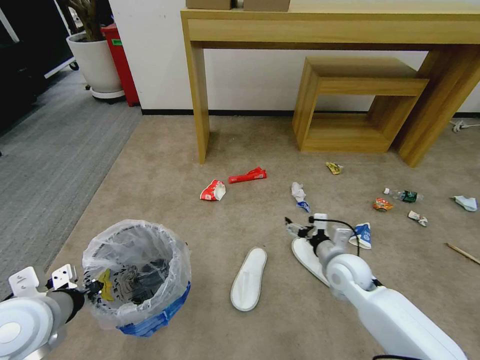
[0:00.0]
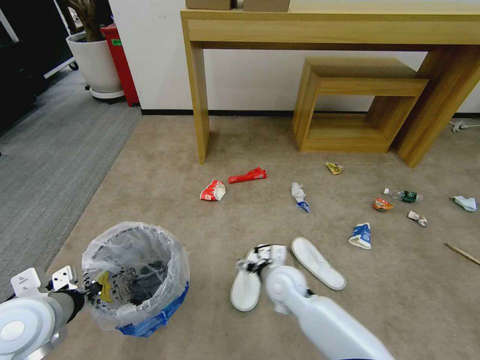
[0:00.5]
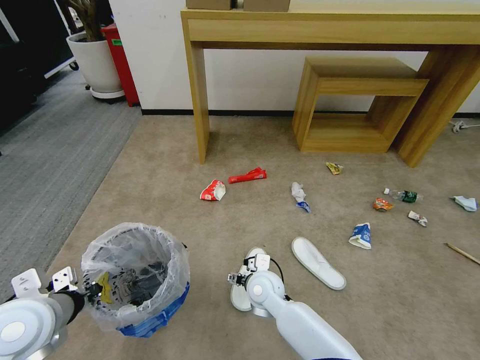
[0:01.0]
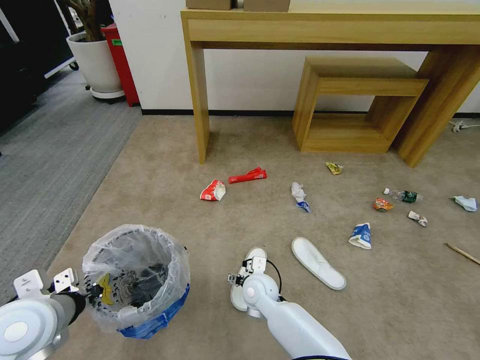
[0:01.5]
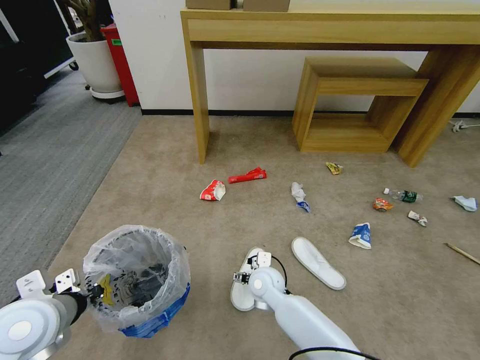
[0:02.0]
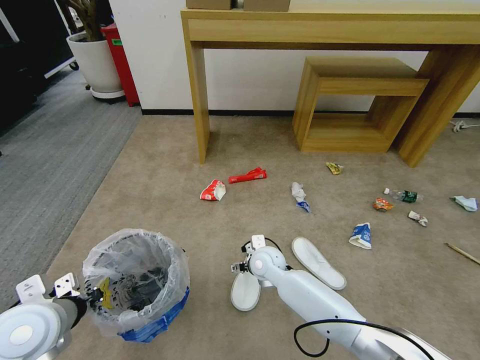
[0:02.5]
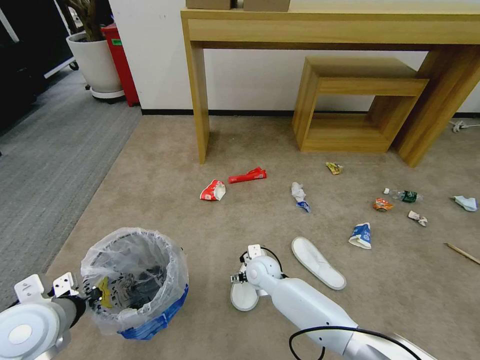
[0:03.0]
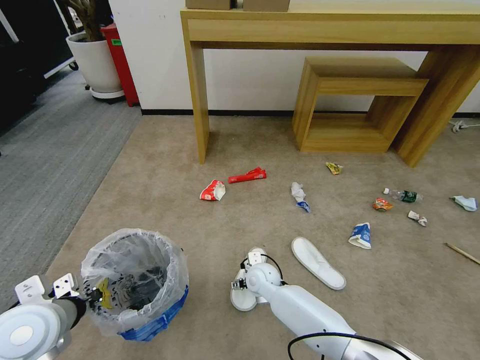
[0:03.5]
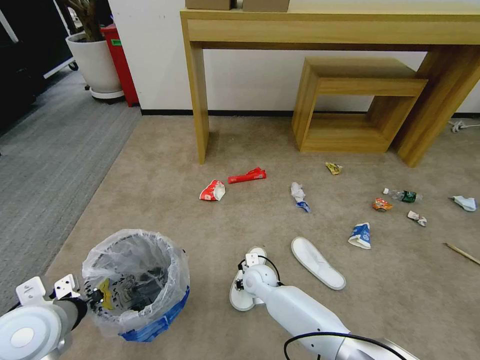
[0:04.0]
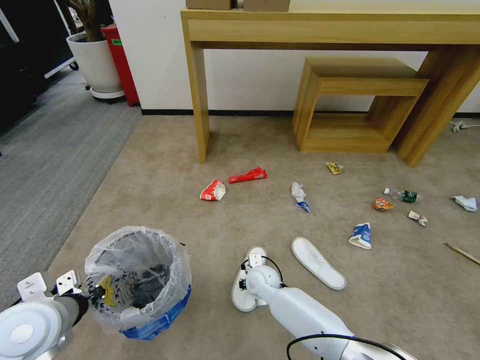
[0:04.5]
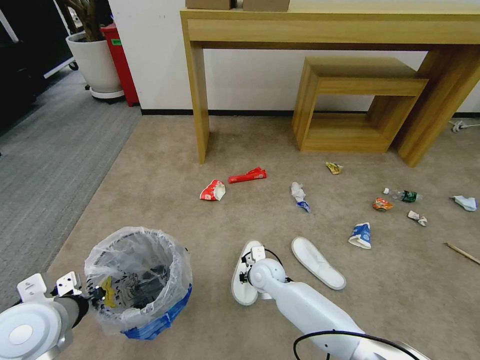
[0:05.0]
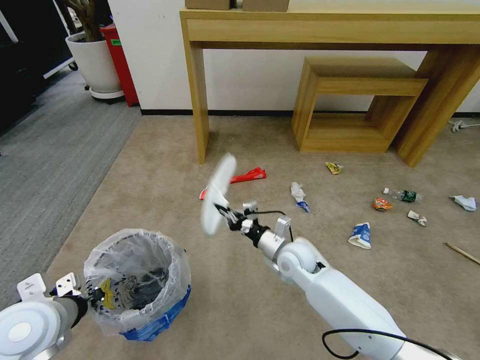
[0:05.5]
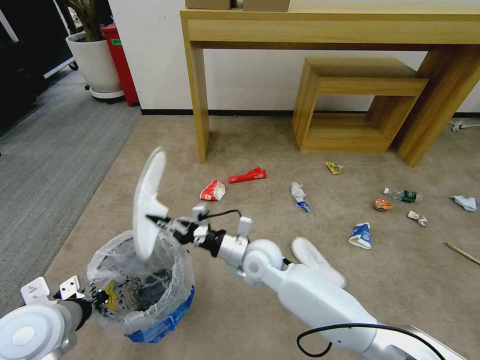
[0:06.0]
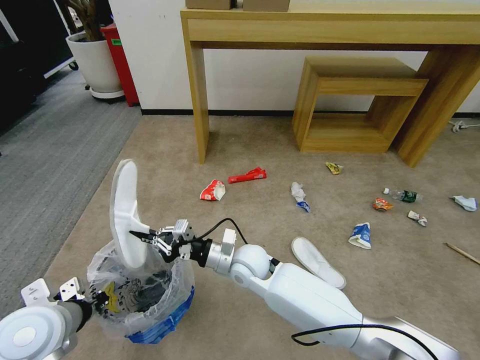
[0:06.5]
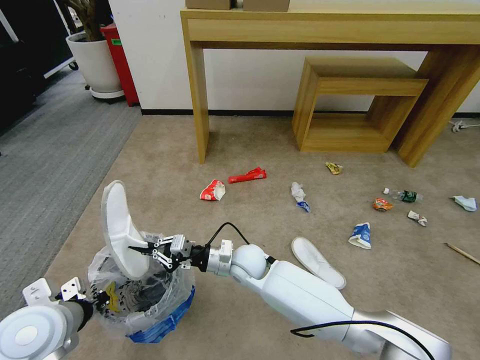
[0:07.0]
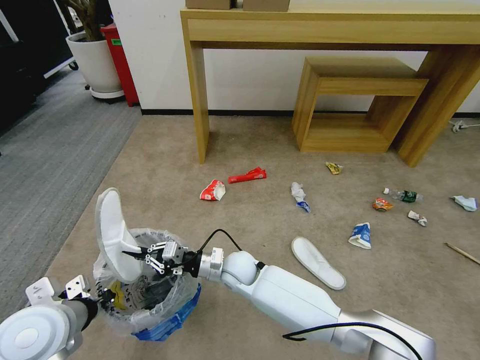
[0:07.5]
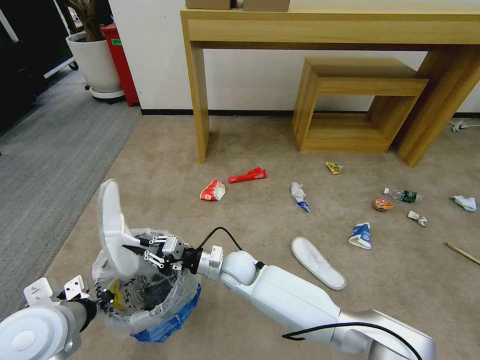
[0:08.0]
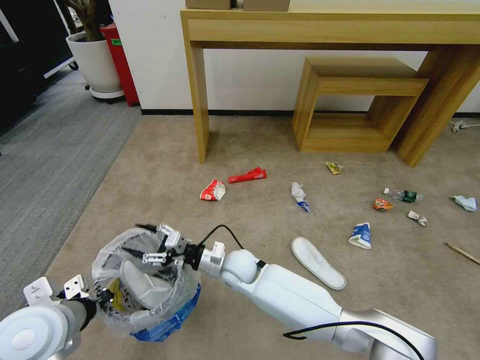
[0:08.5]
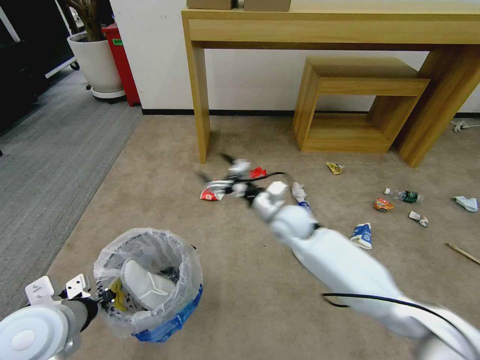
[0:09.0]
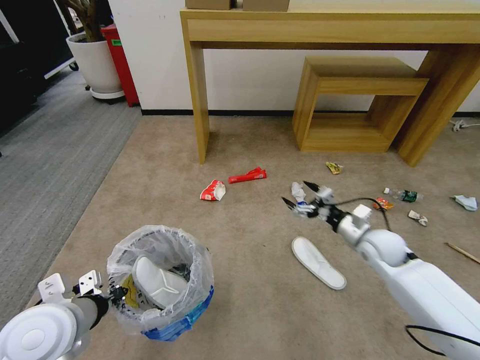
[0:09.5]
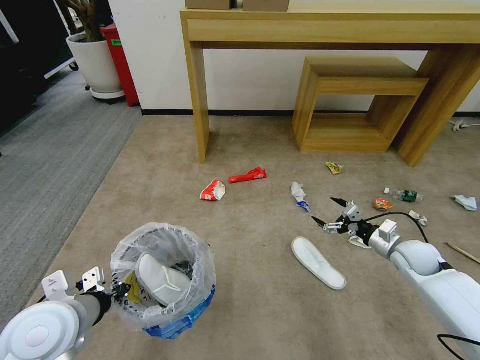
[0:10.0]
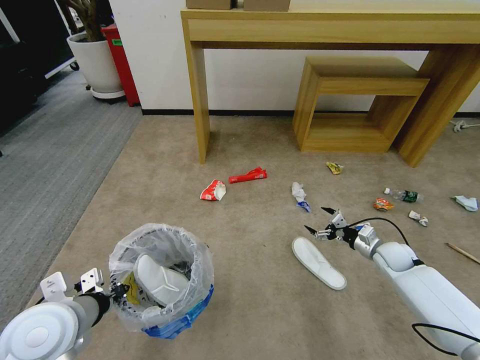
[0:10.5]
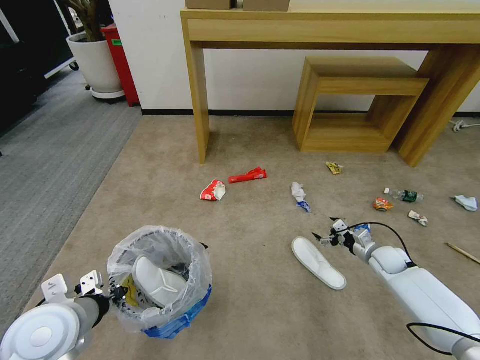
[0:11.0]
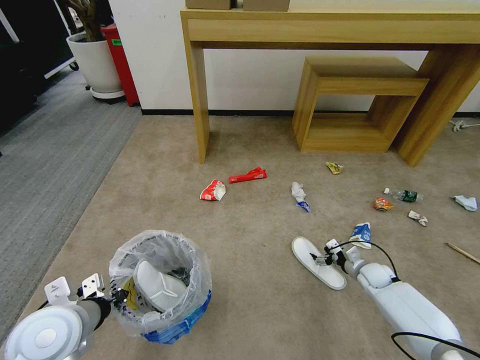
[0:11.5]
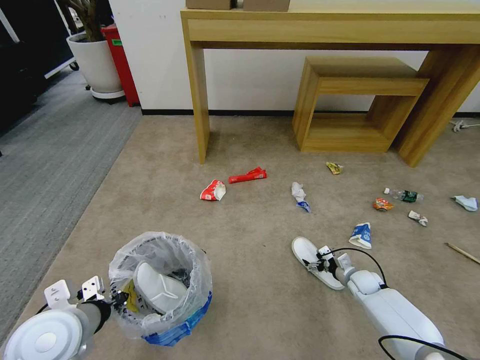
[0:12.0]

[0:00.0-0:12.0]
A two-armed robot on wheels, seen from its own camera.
Task of the whole recording: Pick up the trash bin and place the garbage on the floor into it.
0:00.0 to 0:02.0: The right gripper travels to the left by roughly 20 cm.
0:02.0 to 0:04.0: The right gripper ends up about 5 cm from where it was, and closes up.
0:04.0 to 0:06.0: The right gripper travels upward by some 15 cm, and closes up.
0:06.0 to 0:08.0: The right gripper heads downward and to the left, covering approximately 10 cm.
0:08.0 to 0:10.0: The right gripper heads to the right, covering some 50 cm, and opens its fingers.
0:10.0 to 0:12.0: The right gripper is displaced downward by roughly 20 cm.

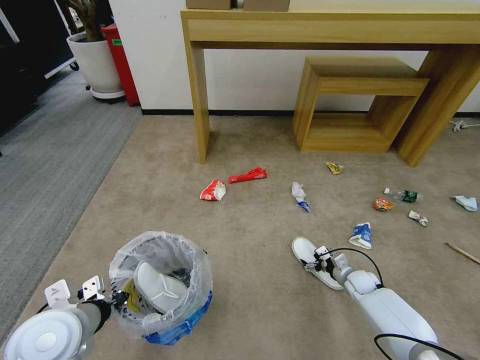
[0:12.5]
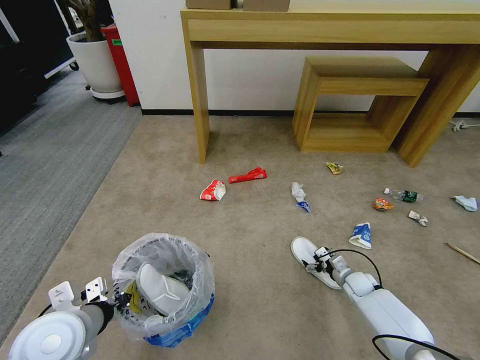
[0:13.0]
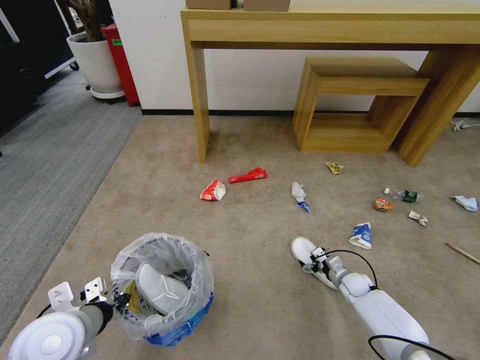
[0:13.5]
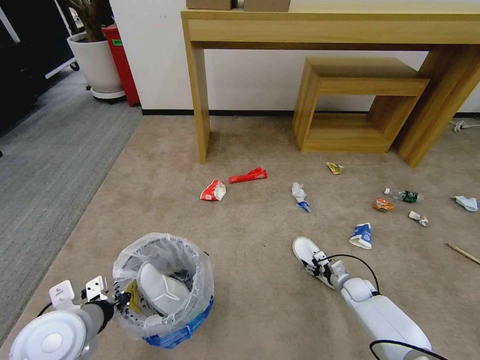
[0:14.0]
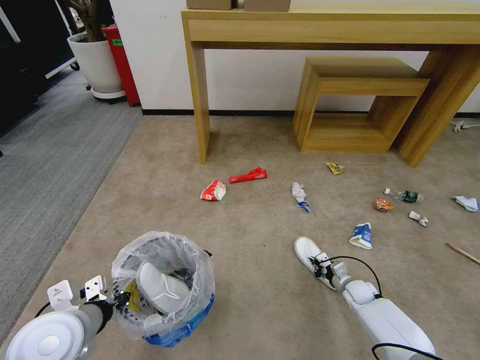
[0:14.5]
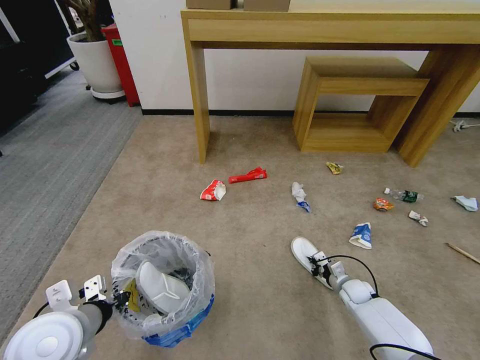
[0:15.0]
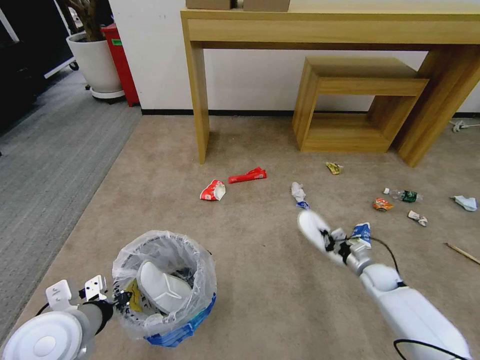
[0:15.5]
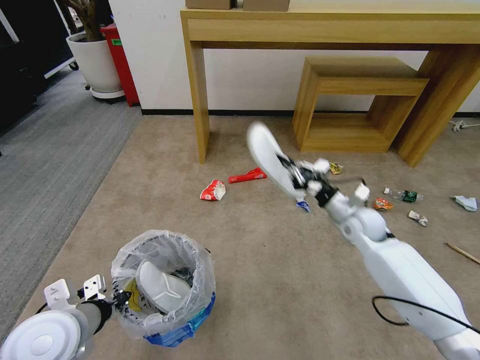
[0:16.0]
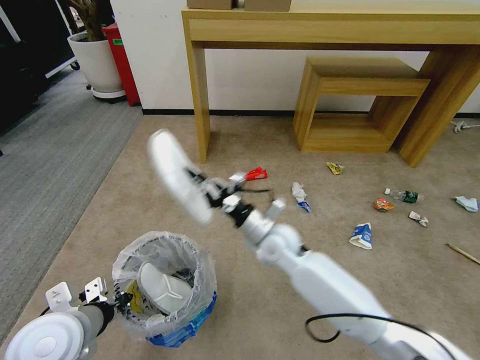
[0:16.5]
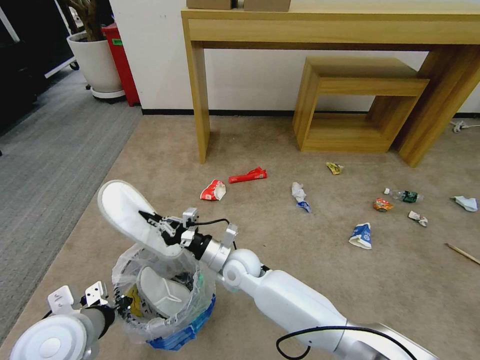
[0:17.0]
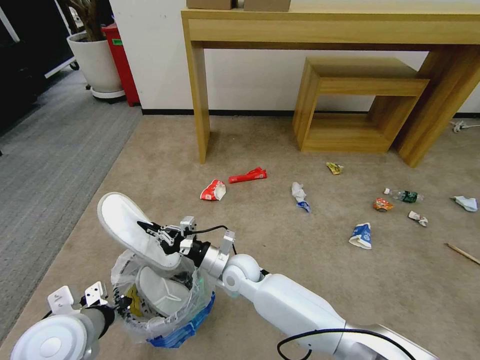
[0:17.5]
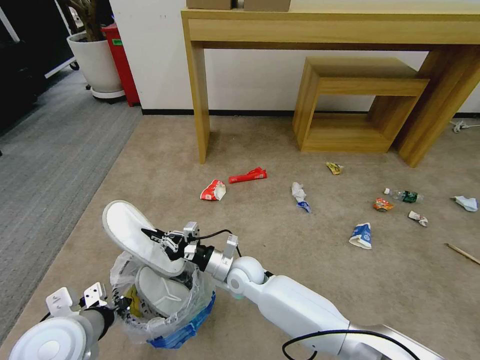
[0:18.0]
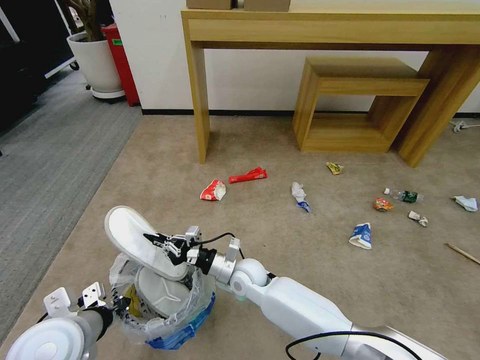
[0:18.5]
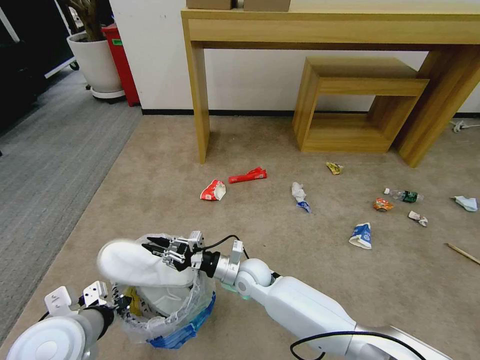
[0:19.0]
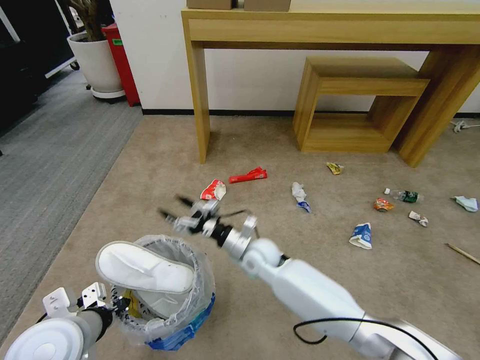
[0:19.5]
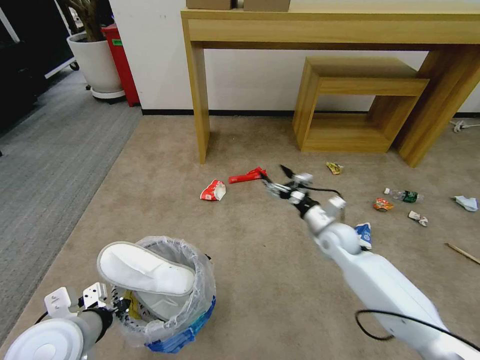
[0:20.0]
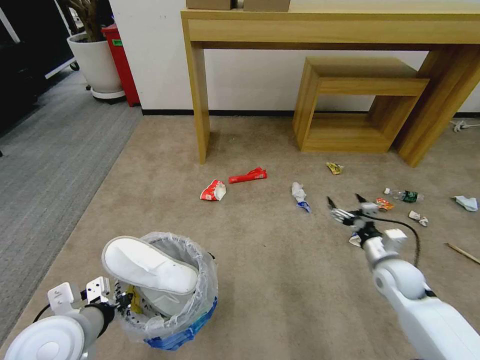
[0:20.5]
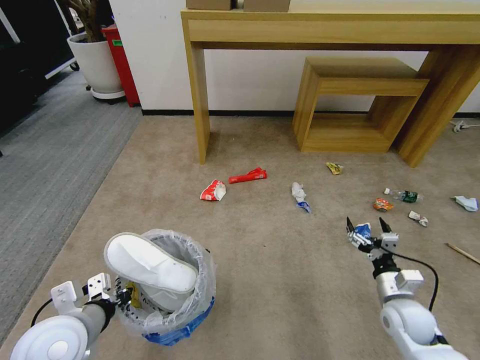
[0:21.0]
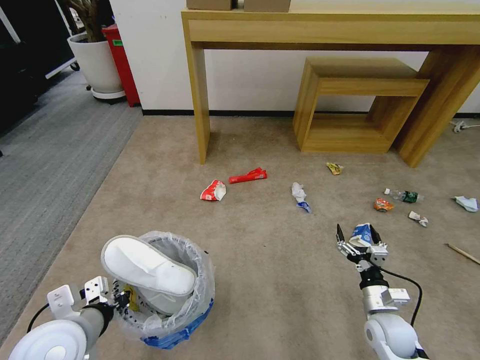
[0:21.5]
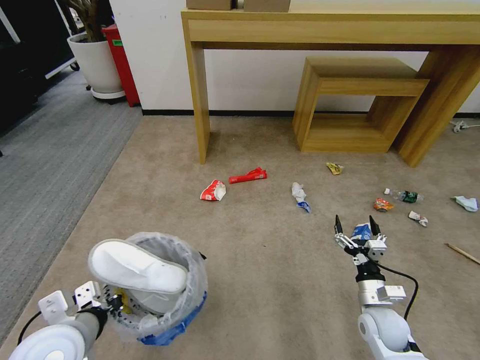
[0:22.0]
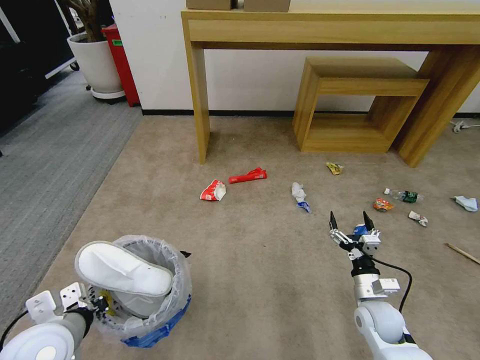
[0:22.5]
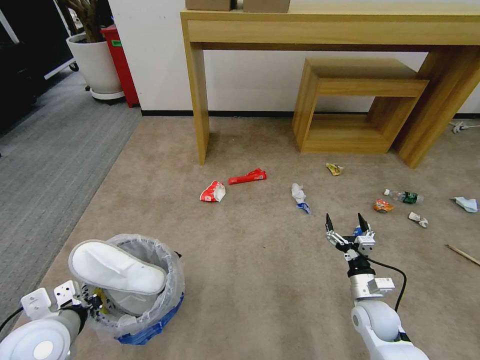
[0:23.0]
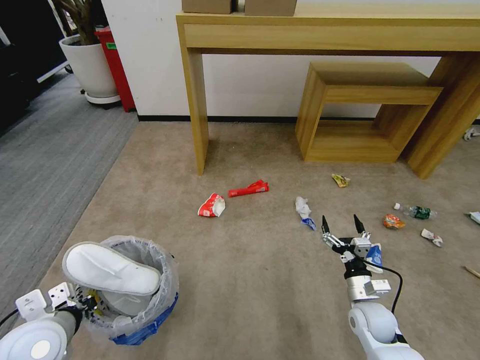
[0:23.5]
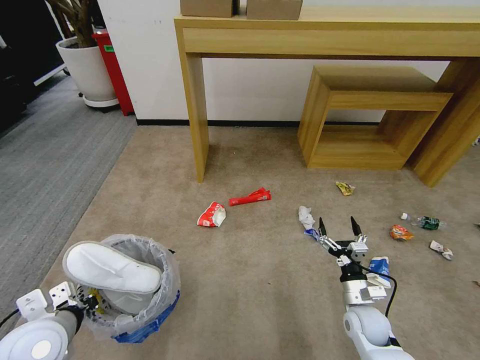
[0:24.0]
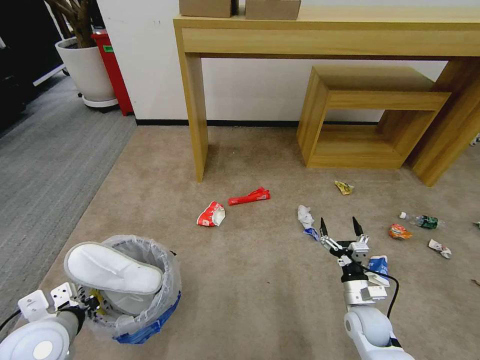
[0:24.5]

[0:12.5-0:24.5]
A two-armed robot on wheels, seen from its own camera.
Task of the whole recording: Pick up the trash bin and place the garbage on the floor into it.
0:12.5 to 0:14.5: The right gripper closes up.
0:14.5 to 0:16.5: The right gripper goes about 40 cm to the left and upward.
0:16.5 to 0:18.5: The right gripper heads downward and to the left, covering some 10 cm.
0:18.5 to 0:20.5: The right gripper goes roughly 35 cm to the right, and opens up.
0:20.5 to 0:22.5: The right gripper shifts approximately 10 cm downward, backward and to the left.

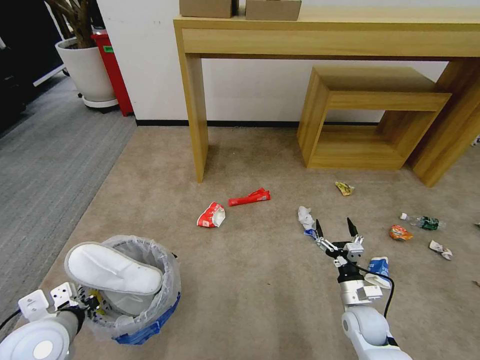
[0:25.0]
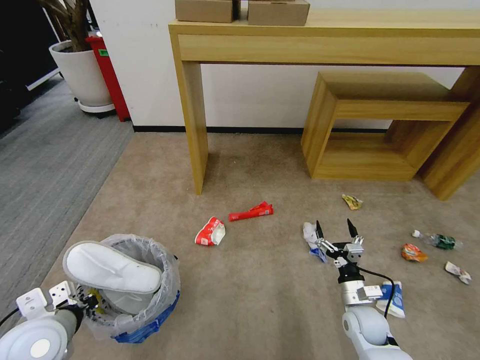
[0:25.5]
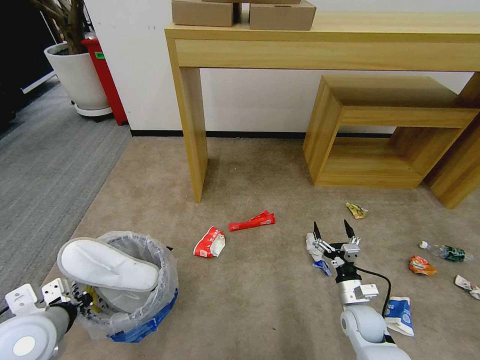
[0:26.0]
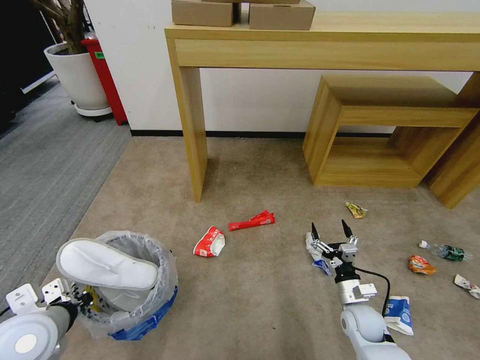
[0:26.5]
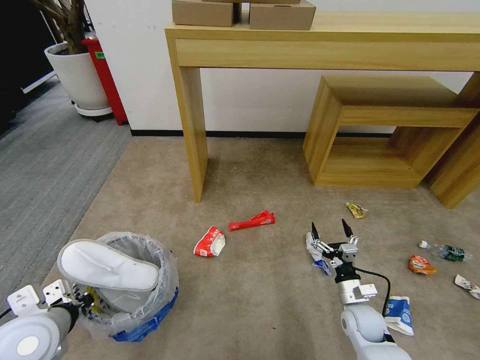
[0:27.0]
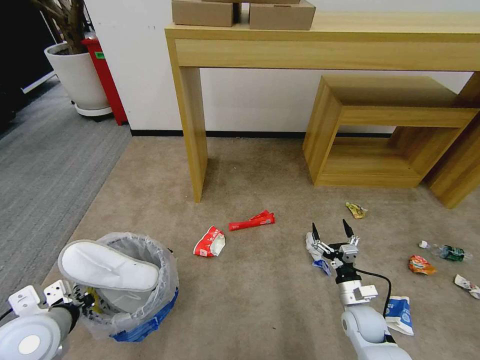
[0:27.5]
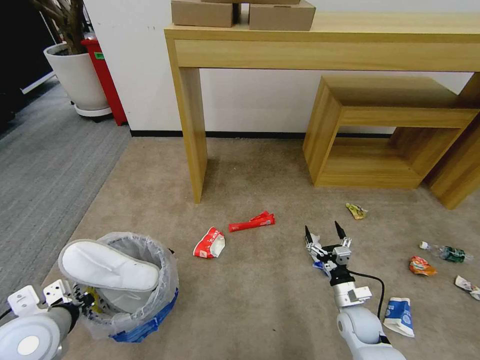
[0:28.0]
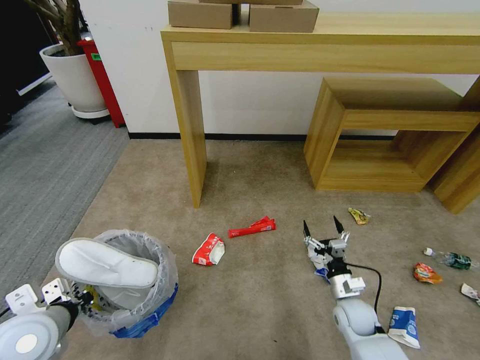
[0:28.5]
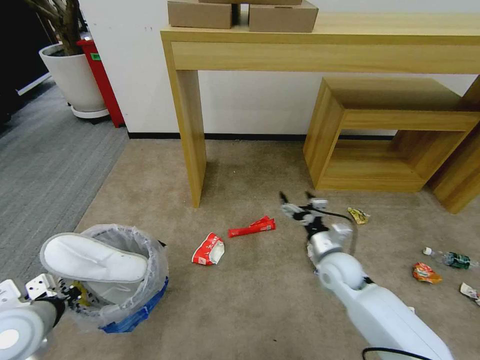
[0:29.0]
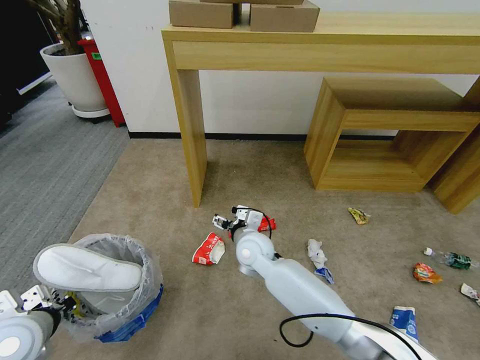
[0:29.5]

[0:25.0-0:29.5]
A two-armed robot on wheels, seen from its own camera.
Task of the whole recording: Pick up the trash bin and place the garbage on the floor into it.
0:27.0 to 0:29.5: The right gripper travels to the left, upward and forward by about 35 cm.
